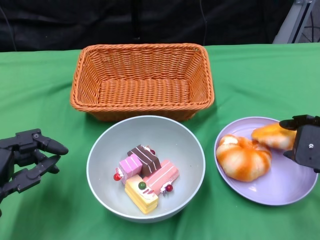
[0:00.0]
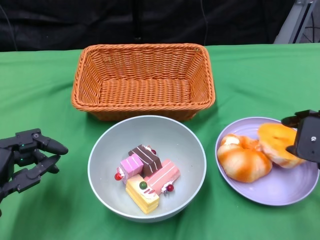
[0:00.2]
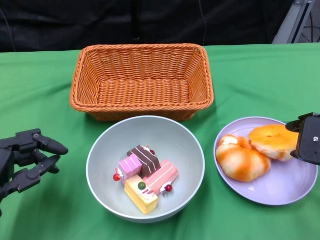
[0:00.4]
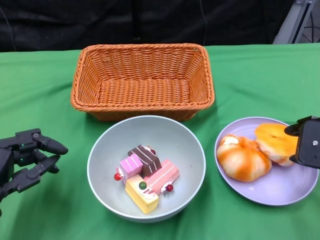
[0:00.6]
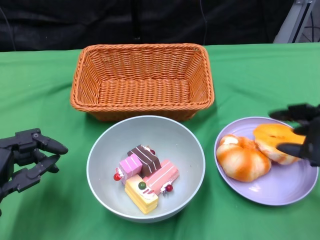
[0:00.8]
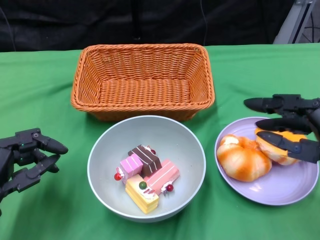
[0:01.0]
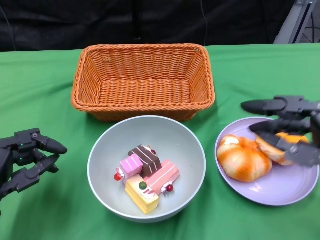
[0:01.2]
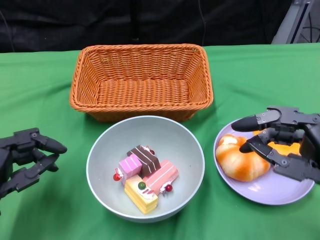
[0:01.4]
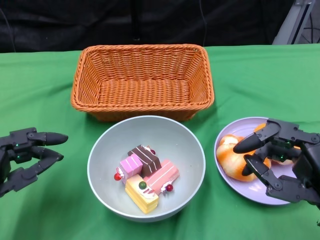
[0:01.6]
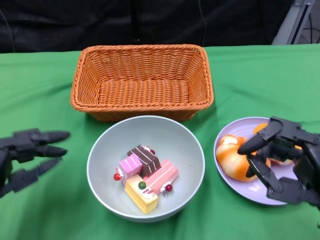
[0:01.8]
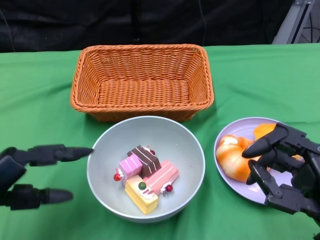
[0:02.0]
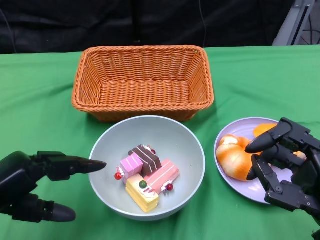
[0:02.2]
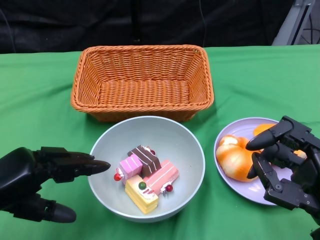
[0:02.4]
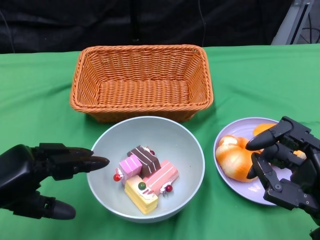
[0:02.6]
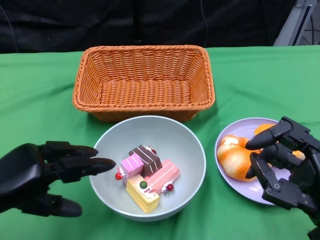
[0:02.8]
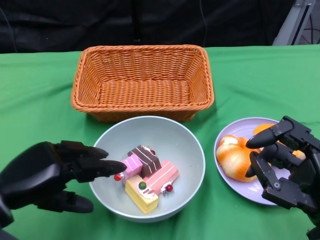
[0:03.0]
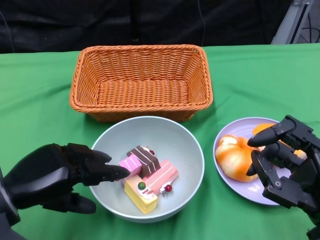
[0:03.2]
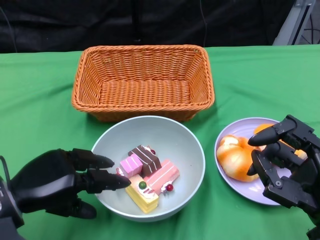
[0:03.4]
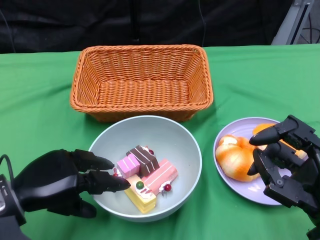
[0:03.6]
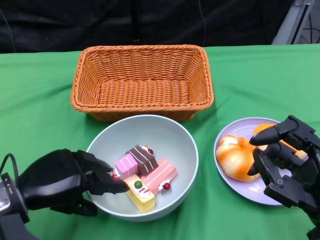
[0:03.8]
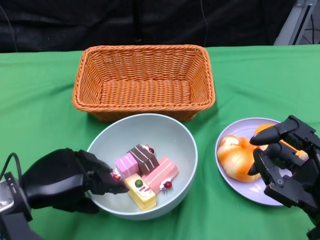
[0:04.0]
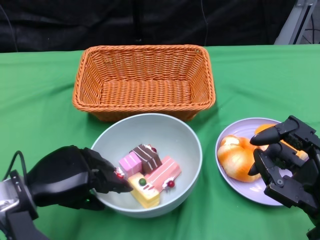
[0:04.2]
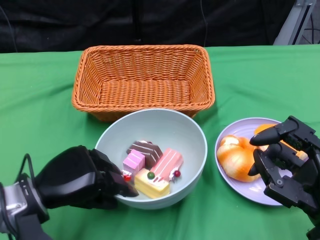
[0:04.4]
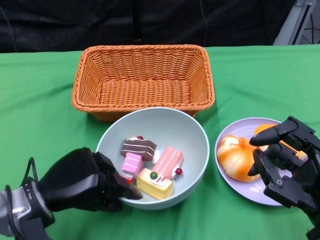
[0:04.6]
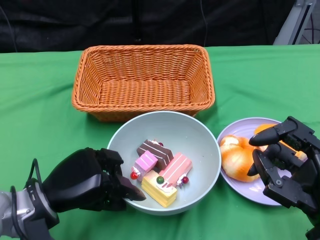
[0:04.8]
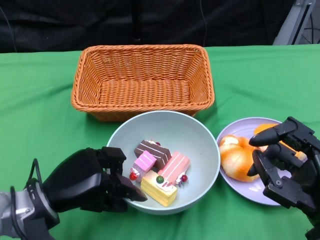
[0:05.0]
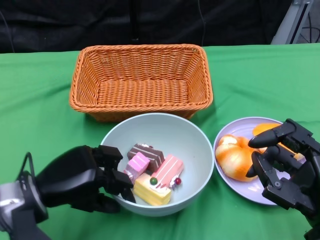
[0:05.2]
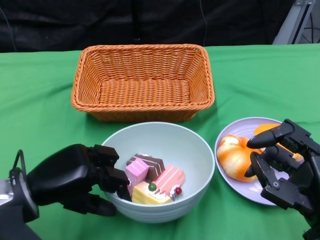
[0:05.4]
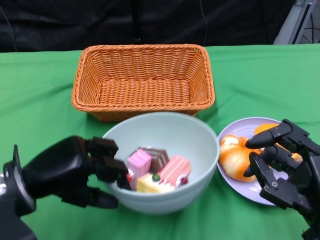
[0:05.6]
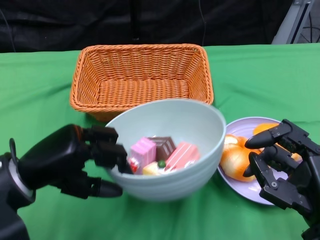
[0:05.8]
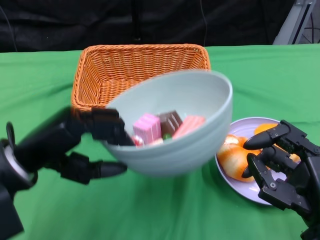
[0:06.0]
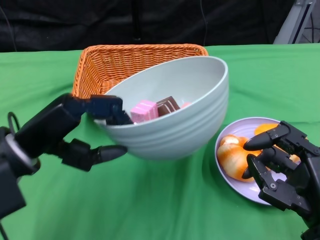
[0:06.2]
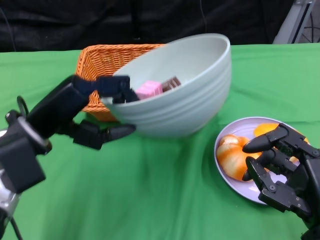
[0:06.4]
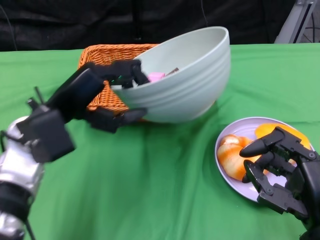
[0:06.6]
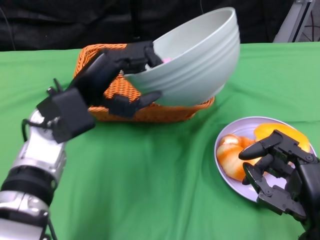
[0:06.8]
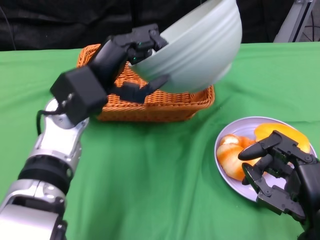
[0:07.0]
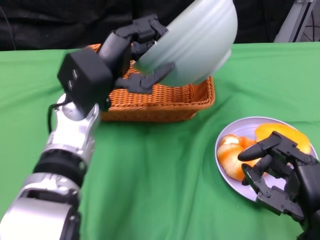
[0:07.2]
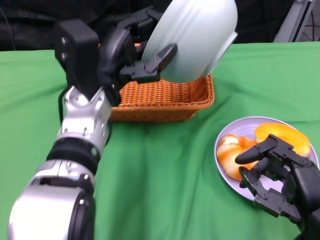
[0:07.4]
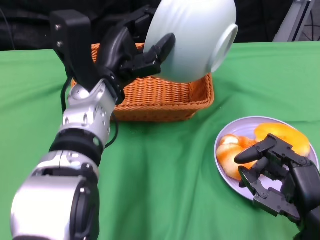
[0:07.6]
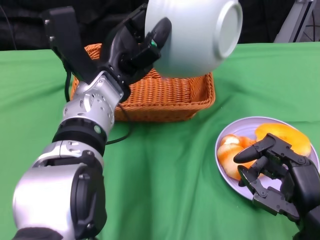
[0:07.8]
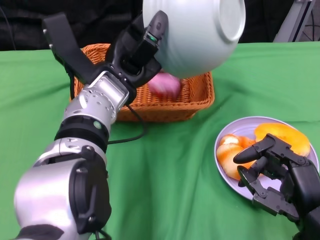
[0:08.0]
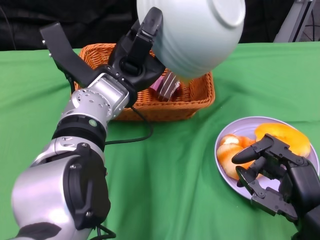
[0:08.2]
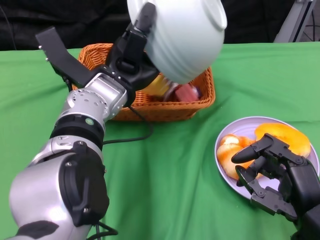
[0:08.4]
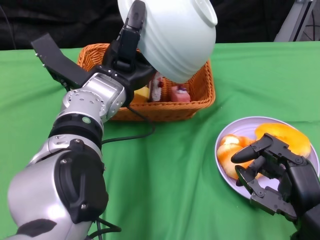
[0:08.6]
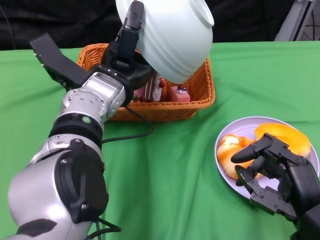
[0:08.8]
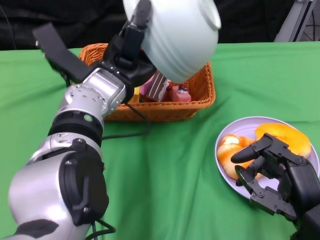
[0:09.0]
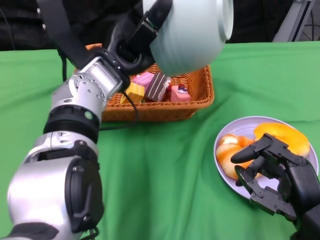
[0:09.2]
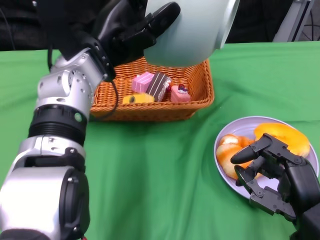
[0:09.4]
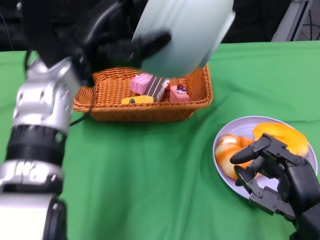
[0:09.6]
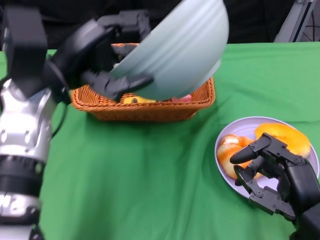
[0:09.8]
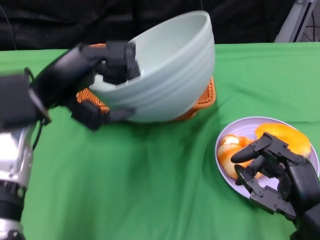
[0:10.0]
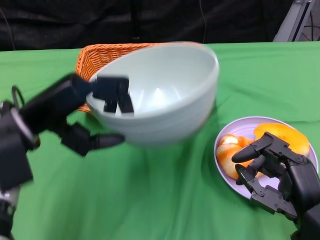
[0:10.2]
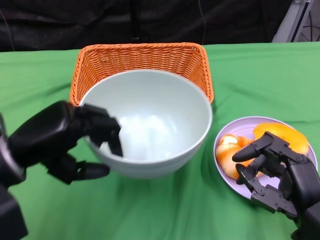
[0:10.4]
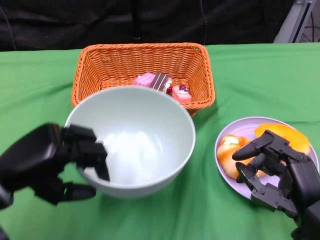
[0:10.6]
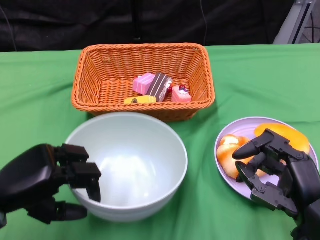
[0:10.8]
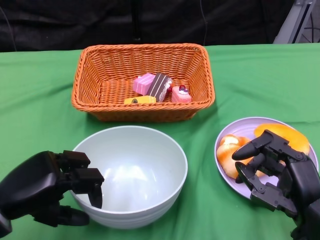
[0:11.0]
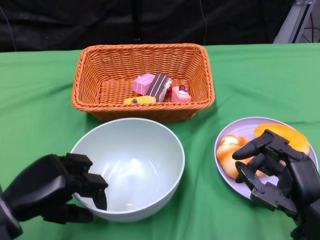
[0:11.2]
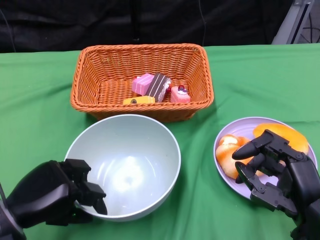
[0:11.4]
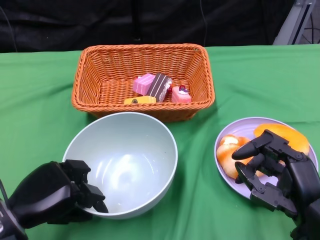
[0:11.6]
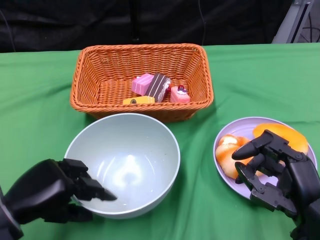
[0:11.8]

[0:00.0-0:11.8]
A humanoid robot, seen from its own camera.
Step, 0.8 to 5.2 s: Grasp the bowl with the left gripper.
Step, 5.4 to 9.8 s: Pour the cake into the basket with the left gripper.
0.0 to 1.4 s: The right hand goes some 5 cm backward.
3.0 to 4.4 s: The left hand shifts by some 5 cm.
4.4 to 6.0 s: The left hand travels upward by approximately 10 cm.
6.0 to 7.4 s: The left hand goes roughly 15 cm to the right and forward.
8.8 to 10.4 s: The left hand heads to the left and backward, covering roughly 15 cm.
10.4 to 11.8 s: The left hand moves downward, about 10 cm.

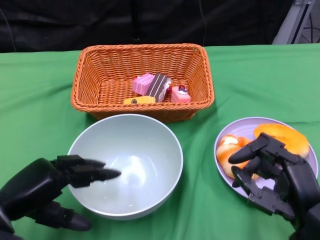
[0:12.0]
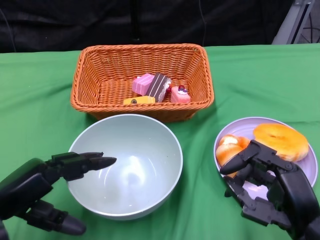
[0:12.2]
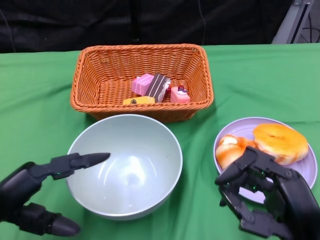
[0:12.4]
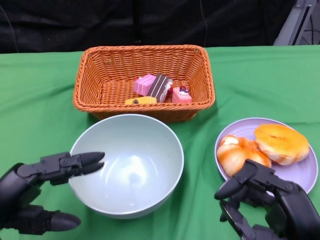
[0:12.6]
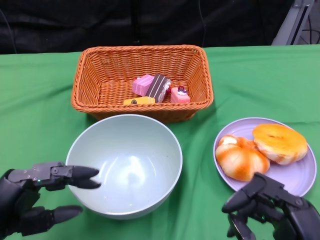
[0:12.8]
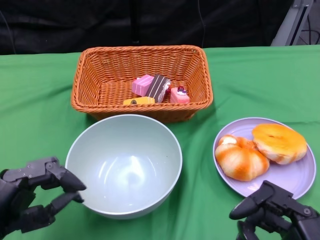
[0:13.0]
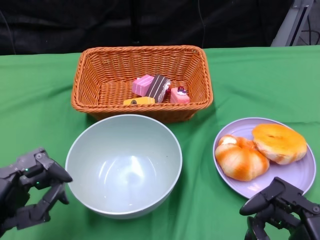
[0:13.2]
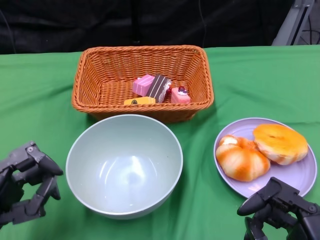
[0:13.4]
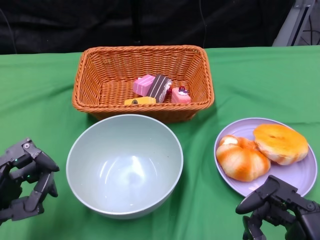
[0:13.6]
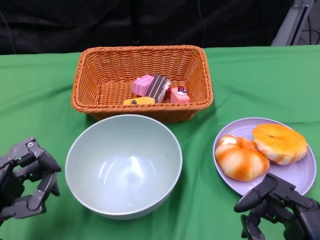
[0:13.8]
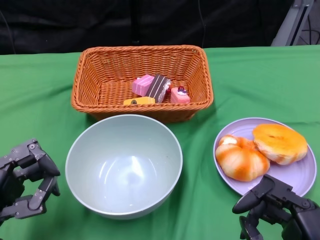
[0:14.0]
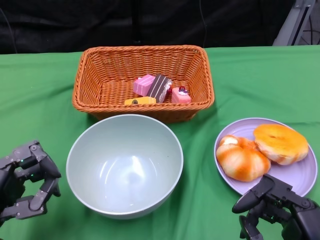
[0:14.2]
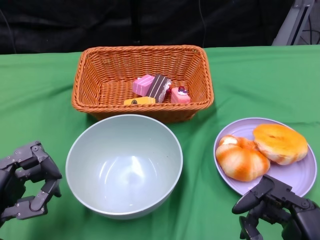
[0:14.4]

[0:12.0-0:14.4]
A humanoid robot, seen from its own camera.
12.0 to 13.2 s: The left hand ends up about 5 cm from where it was. The right hand travels backward by roughly 10 cm.
13.2 to 14.4 s: The hands make only small movements.

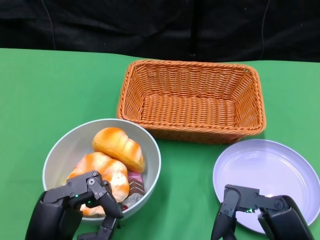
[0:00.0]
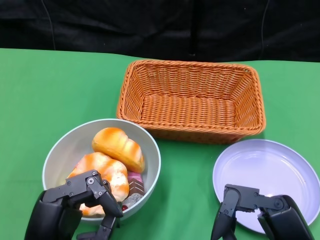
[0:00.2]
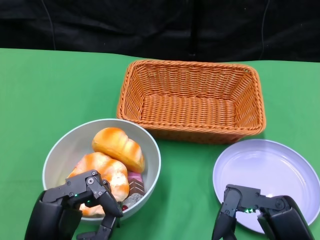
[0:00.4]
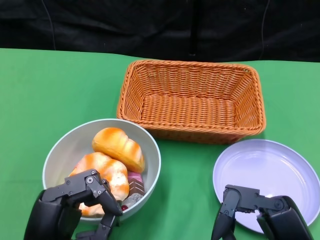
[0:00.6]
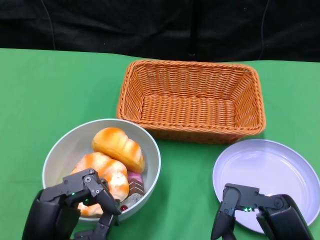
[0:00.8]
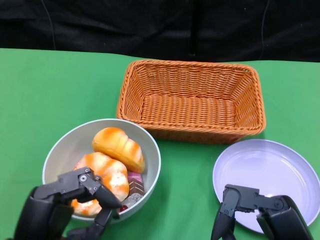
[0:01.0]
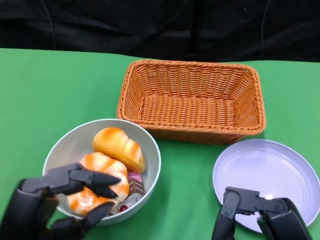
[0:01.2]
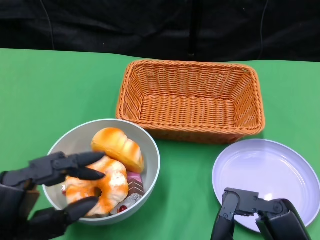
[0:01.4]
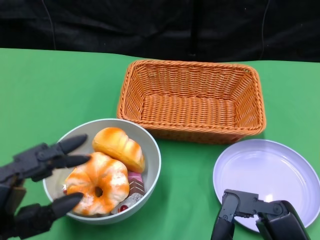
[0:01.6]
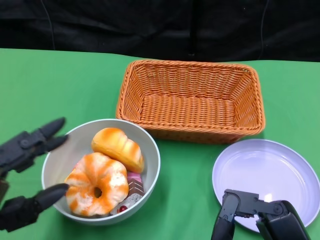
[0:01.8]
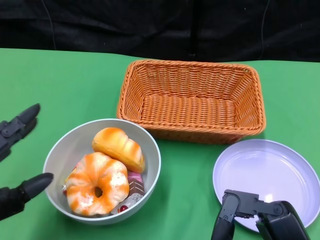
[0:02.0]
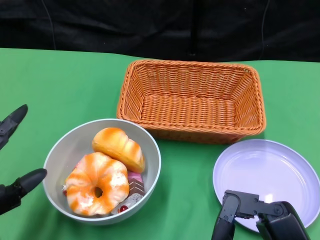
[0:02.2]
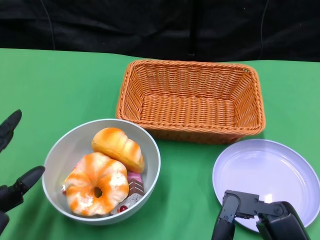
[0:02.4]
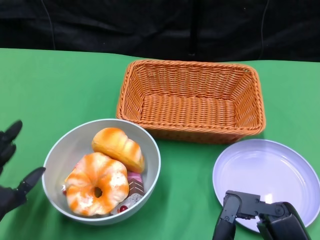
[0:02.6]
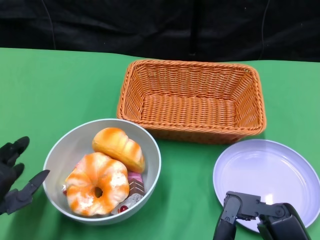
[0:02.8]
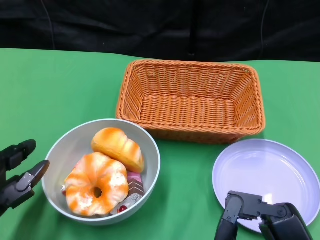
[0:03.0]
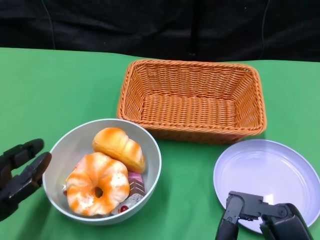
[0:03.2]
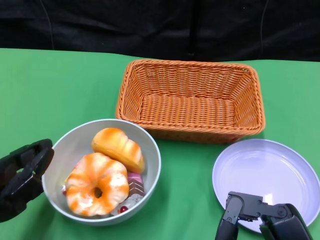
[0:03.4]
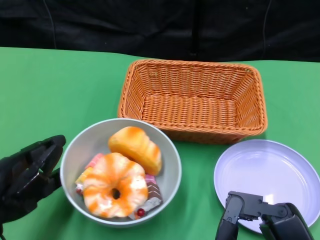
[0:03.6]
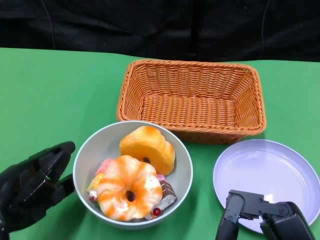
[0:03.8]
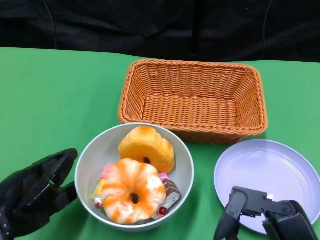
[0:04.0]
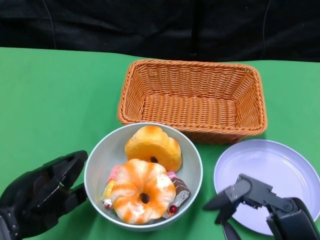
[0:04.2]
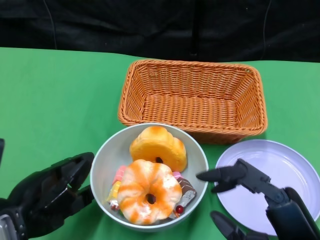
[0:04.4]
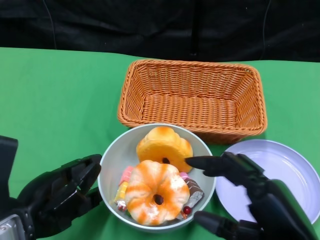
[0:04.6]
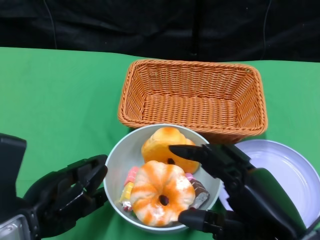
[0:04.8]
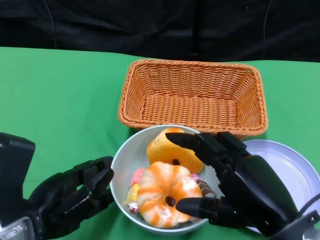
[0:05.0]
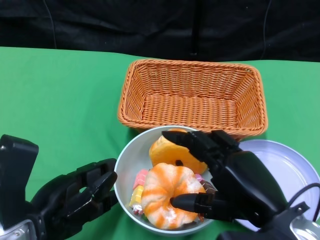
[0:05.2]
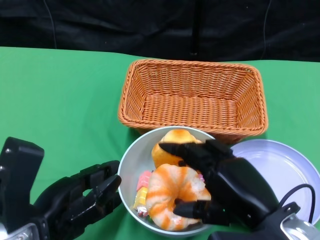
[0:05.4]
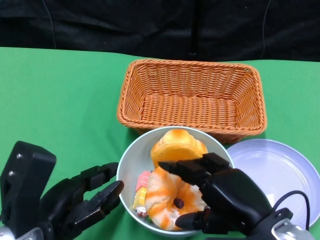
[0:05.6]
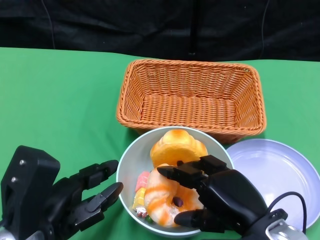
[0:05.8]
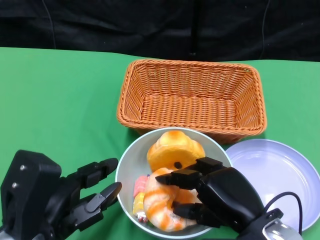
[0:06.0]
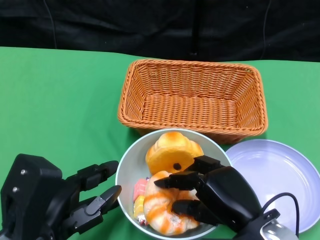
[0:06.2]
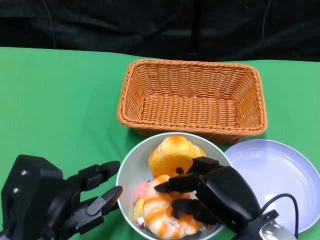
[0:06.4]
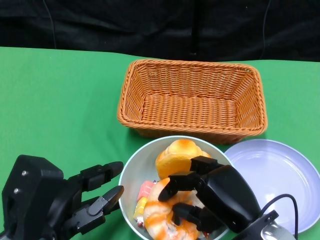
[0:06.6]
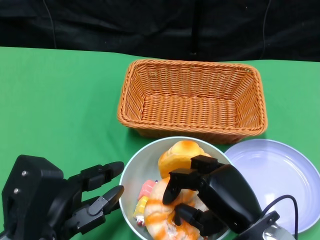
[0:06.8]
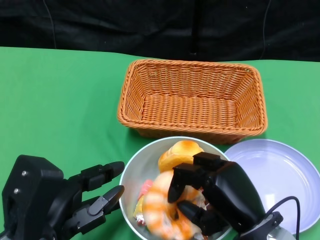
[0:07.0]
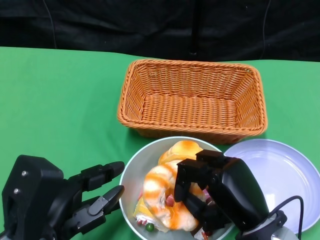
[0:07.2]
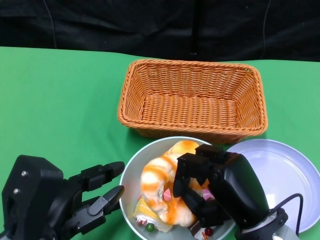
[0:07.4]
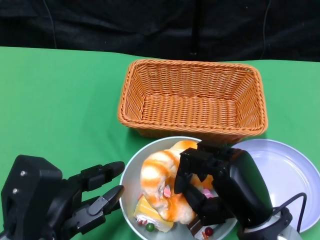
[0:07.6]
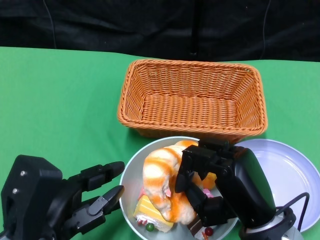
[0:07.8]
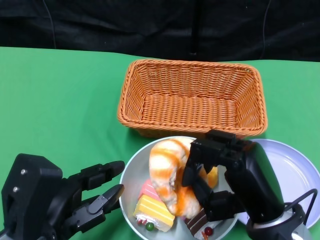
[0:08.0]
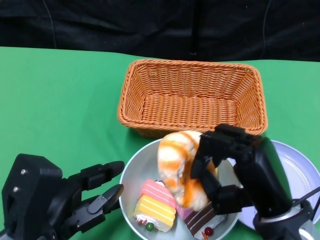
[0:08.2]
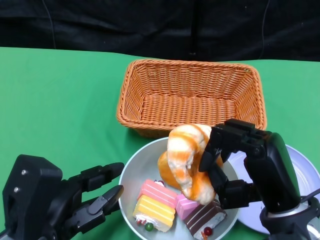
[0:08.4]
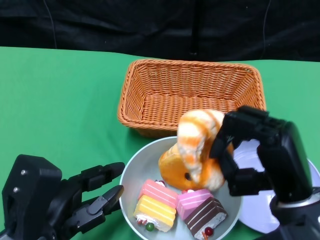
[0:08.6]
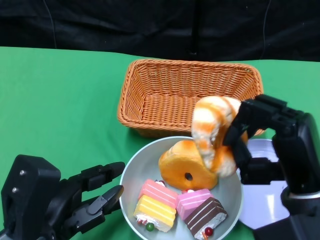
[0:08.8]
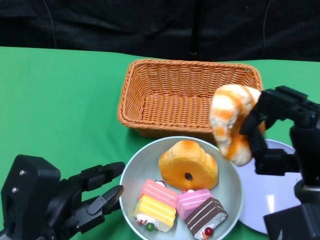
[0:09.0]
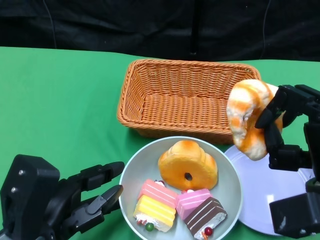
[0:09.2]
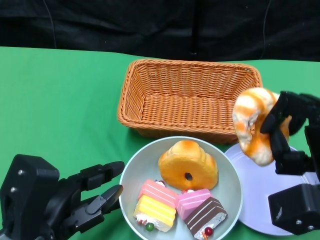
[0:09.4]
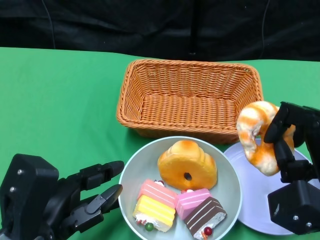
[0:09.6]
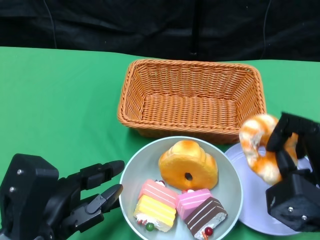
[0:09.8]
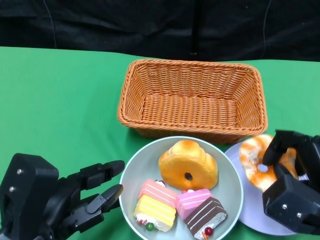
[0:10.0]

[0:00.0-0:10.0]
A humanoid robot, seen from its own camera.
Step, 0.0 to 4.6 s: Push the bowl to the center of the table using the left gripper.
1.4 to 2.8 s: The left hand ends up about 5 cm from where it was.
4.2 to 5.8 s: The right hand is displaced forward by approximately 5 cm.
7.2 to 8.6 s: The right hand travels upward by roughly 5 cm.
8.6 to 10.0 s: The right hand shifts approximately 5 cm to the right.
